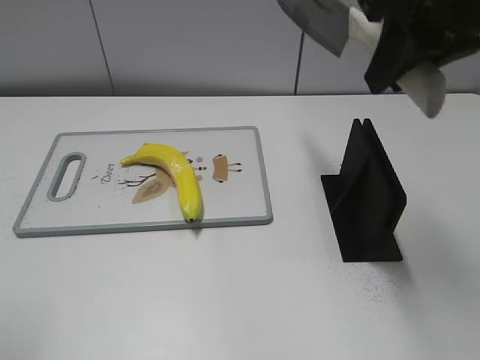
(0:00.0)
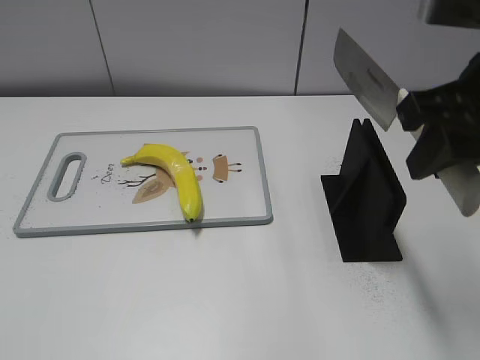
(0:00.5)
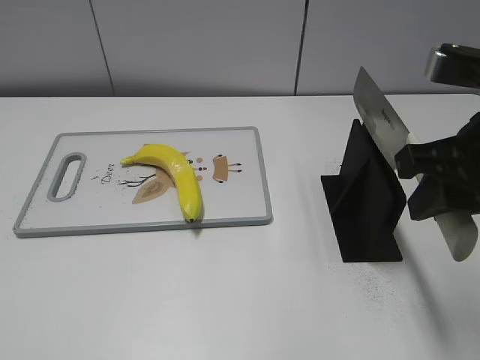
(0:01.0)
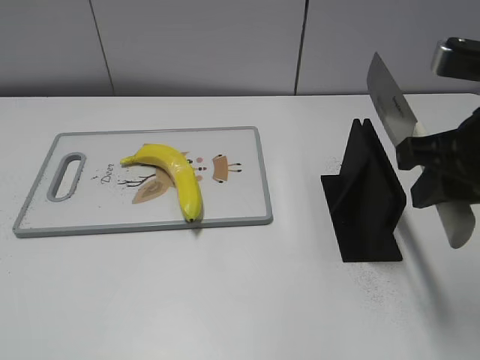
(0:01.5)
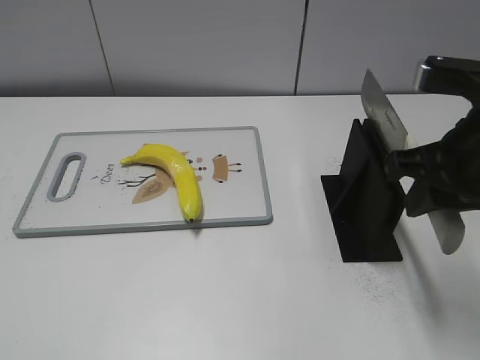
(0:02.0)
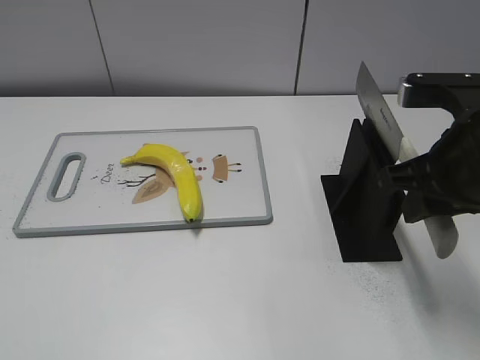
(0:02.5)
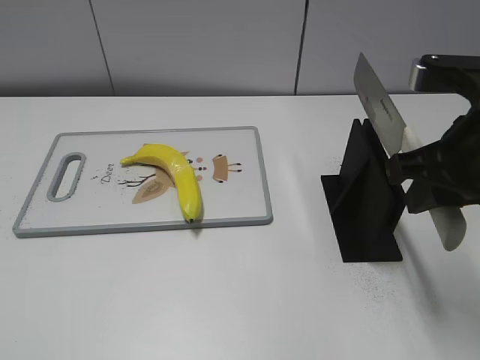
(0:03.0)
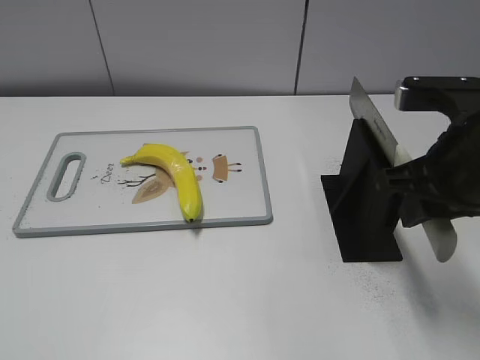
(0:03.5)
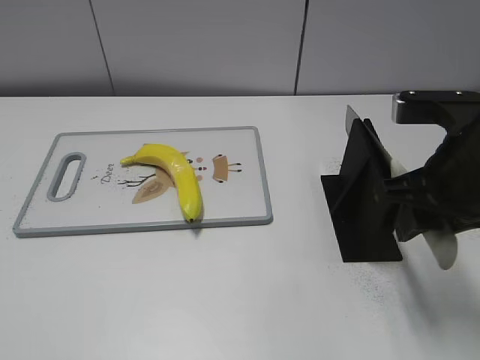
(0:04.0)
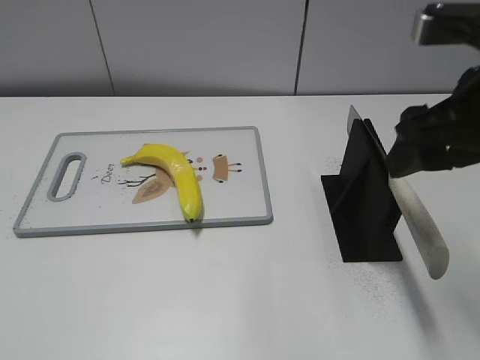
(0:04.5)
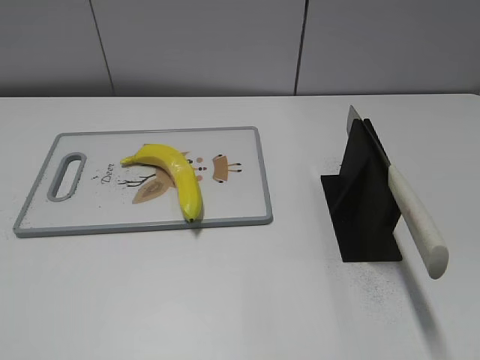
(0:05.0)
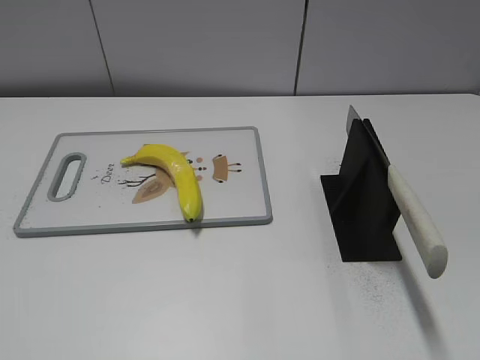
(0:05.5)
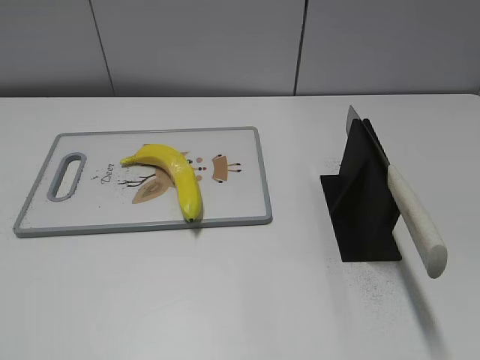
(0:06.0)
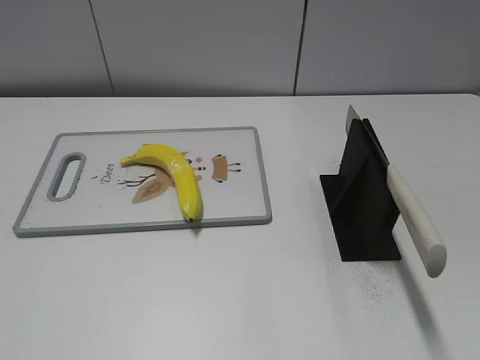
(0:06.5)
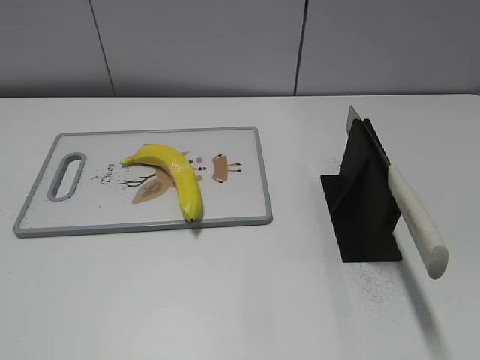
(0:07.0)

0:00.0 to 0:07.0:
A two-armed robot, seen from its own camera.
Task of the whole recording: cut plastic banana.
Step, 0:00.5 to 0:07.0: Place the knife on the storage rack with your right hand.
0:00.0 to 0:02.0: The left gripper is displaced backward and downward by roughly 15 cm. Meanwhile the right gripper is displaced downward by roughly 10 cm.
0:02.0 to 0:03.5: The grippers stay close to where they were, moving slightly.
0:03.5 to 0:05.0: The right gripper travels backward, upward and to the right by approximately 15 cm, and opens up.

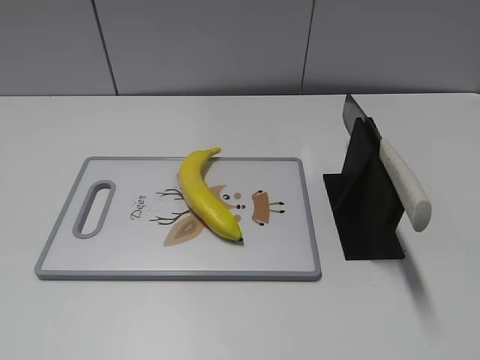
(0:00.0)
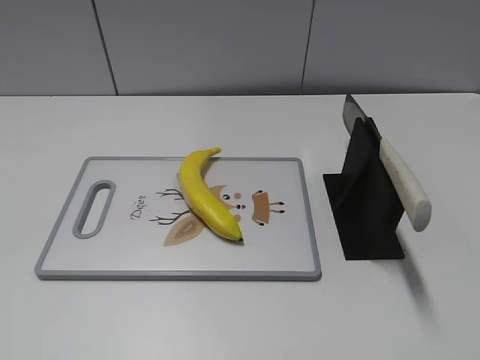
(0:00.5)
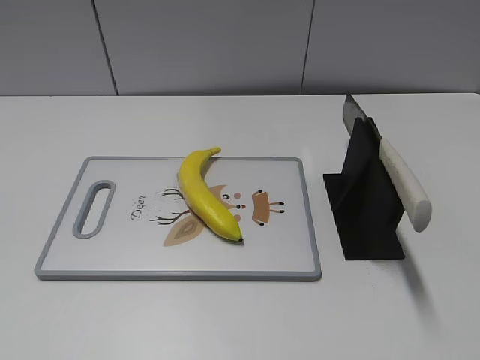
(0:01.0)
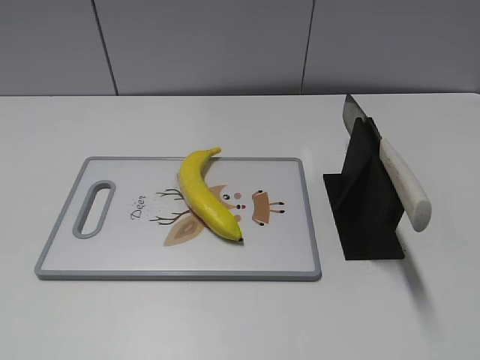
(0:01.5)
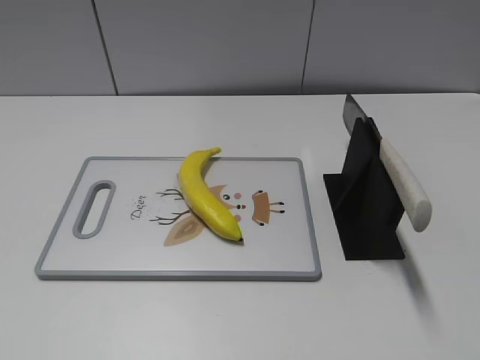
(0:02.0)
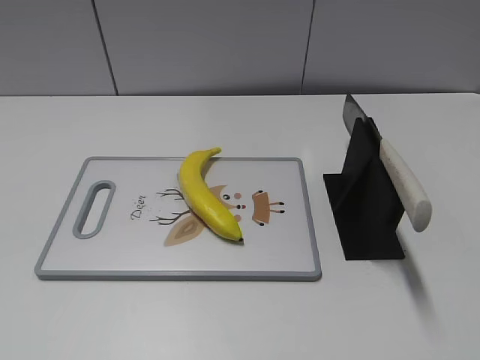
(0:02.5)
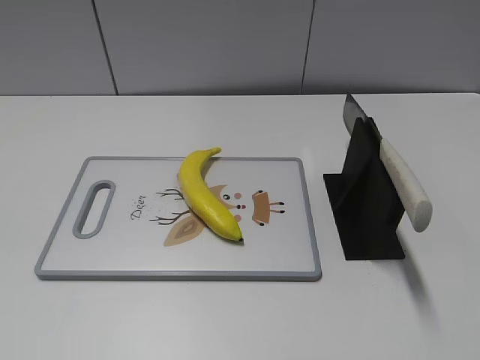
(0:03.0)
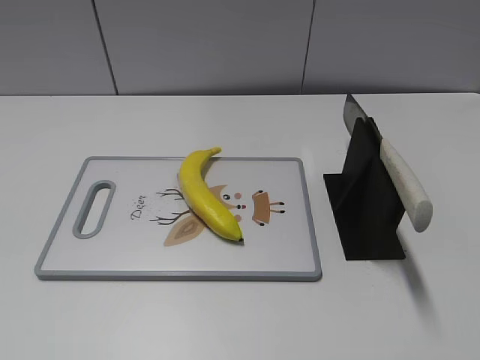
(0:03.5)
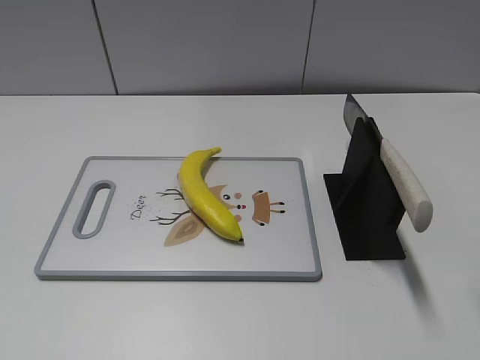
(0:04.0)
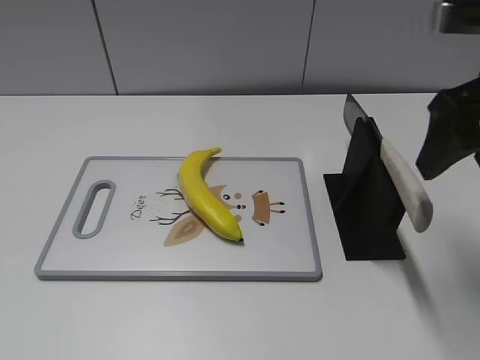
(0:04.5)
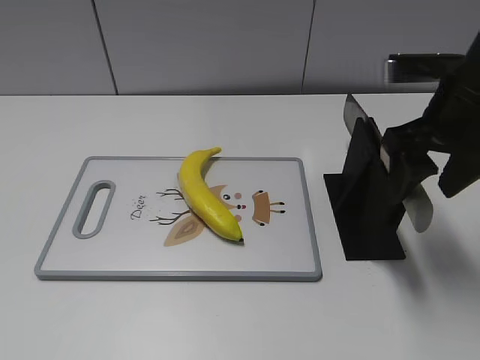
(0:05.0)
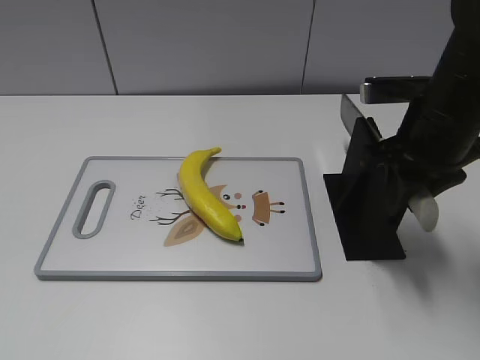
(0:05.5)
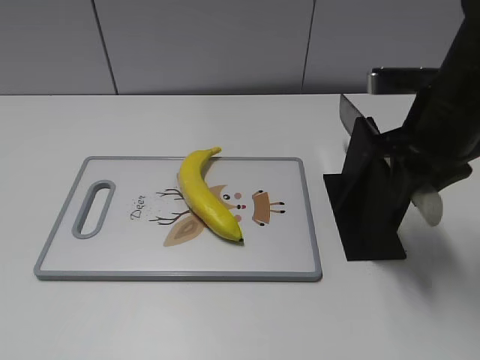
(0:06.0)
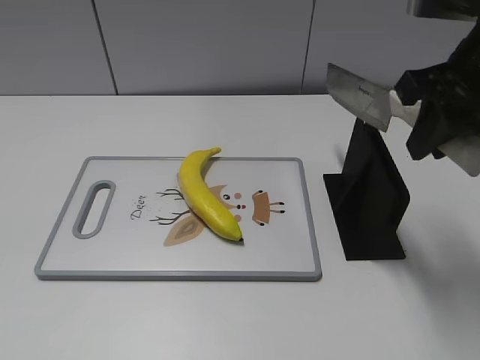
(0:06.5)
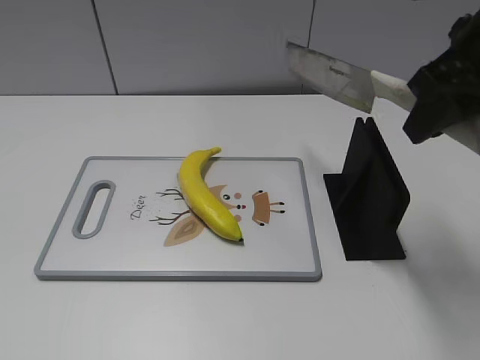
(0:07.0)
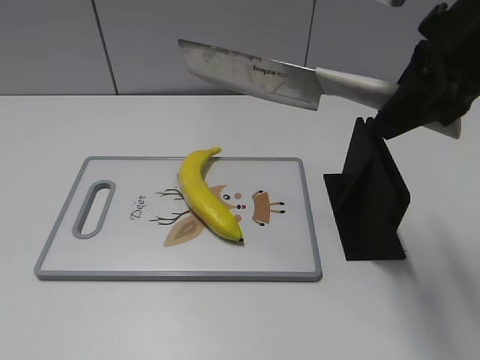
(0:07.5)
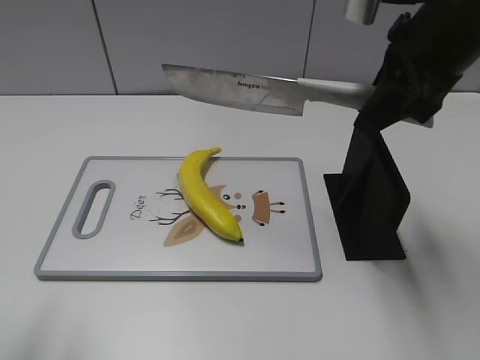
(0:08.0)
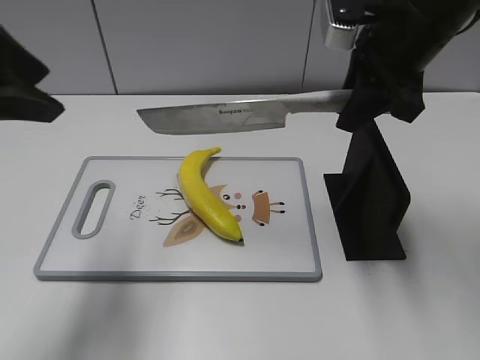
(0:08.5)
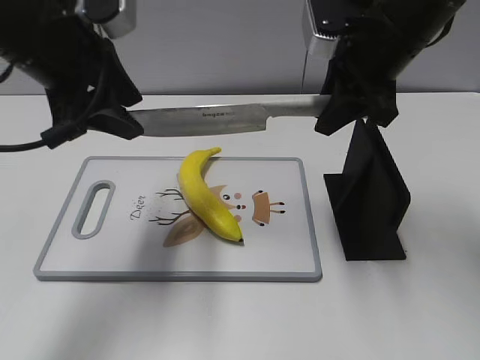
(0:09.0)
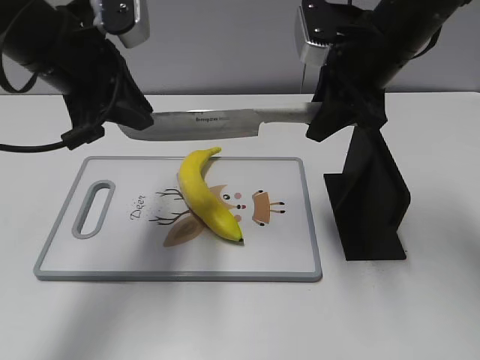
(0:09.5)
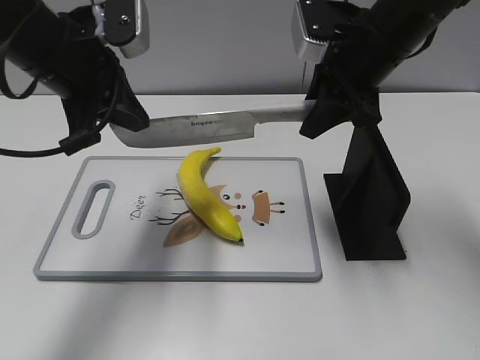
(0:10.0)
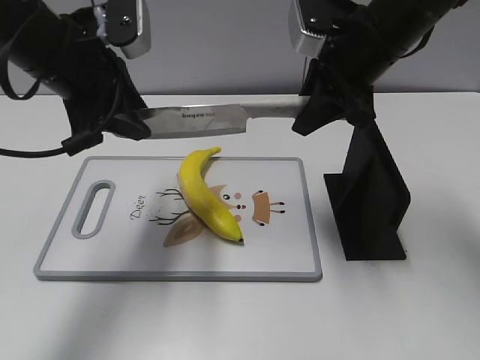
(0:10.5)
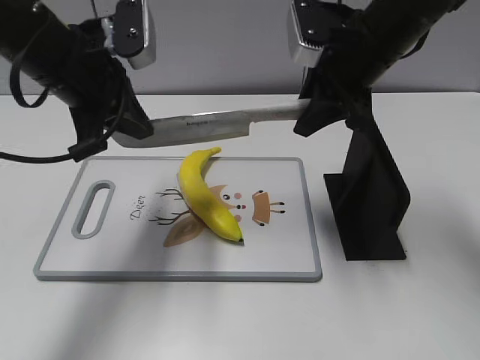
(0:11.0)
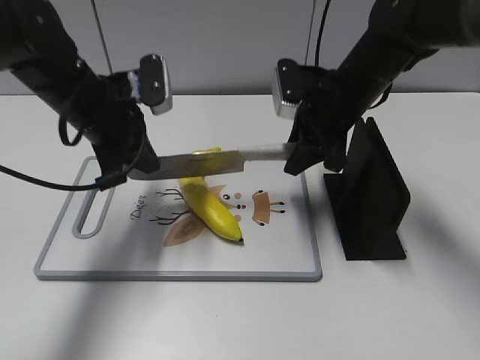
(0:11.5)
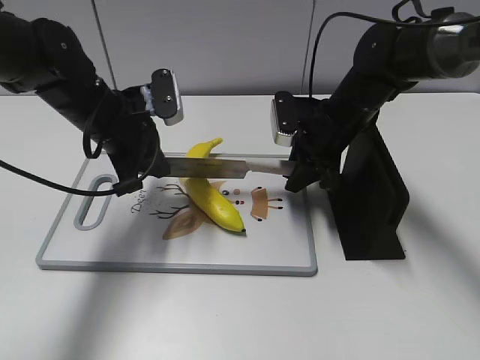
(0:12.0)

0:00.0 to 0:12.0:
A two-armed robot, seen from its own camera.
Task of the whole recording: cut plastic banana.
Step, 0:00.0 to 0:07.0: Grab the knife handle with your right hand.
0:04.0 to 0:06.0: The right gripper heads downward, forward and to the left, covering roughly 15 cm, and closes its fingers.
0:06.0 to 0:08.0: The right gripper travels upward by about 10 cm. Meanwhile the left gripper is displaced forward by roughly 10 cm.
0:08.0 to 0:10.0: The left gripper shifts about 25 cm forward and to the right, and closes; the right gripper moves forward and downward, about 10 cm.
0:10.0 to 0:12.0: Both grippers travel together downward, about 10 cm. The left gripper opens, then closes once more.

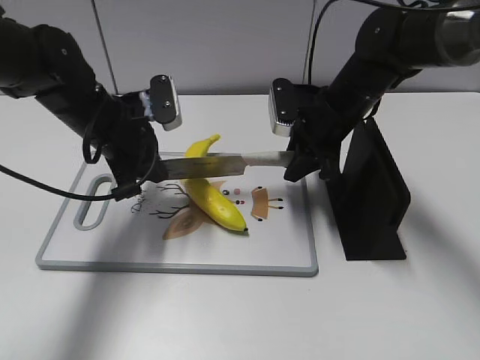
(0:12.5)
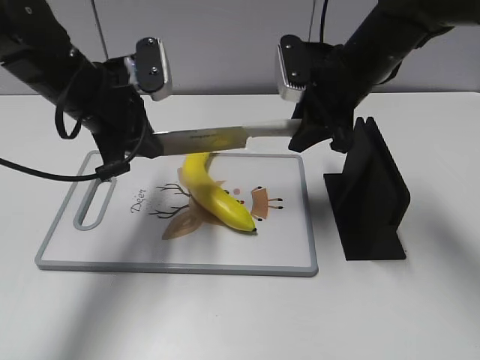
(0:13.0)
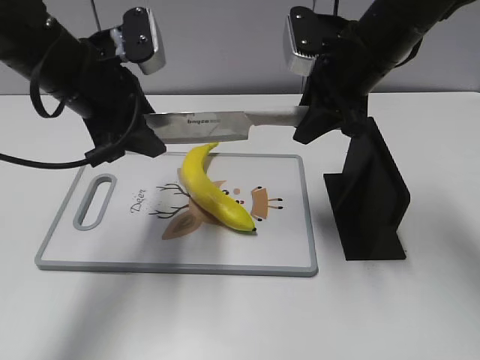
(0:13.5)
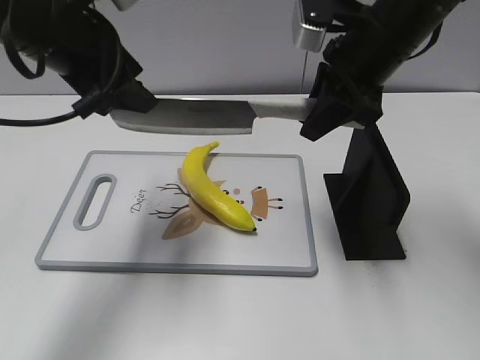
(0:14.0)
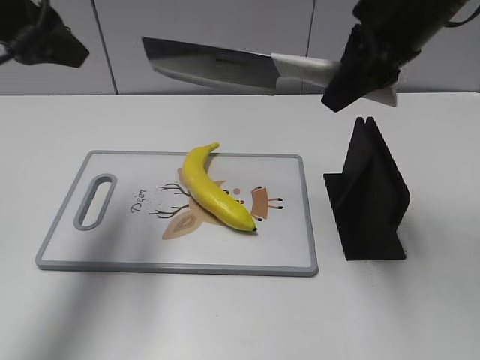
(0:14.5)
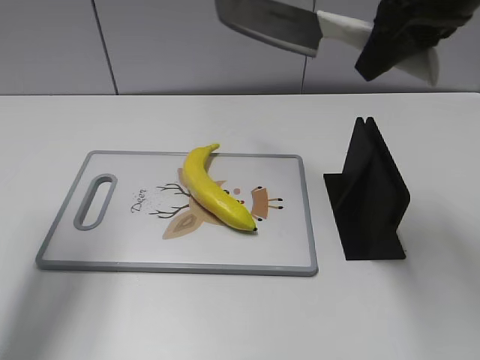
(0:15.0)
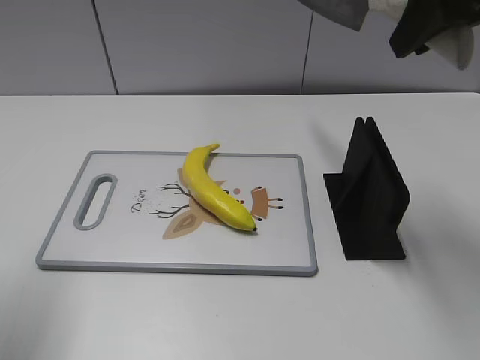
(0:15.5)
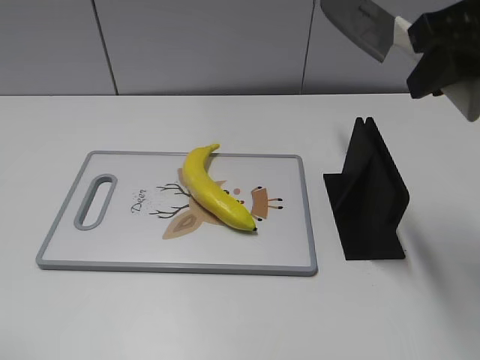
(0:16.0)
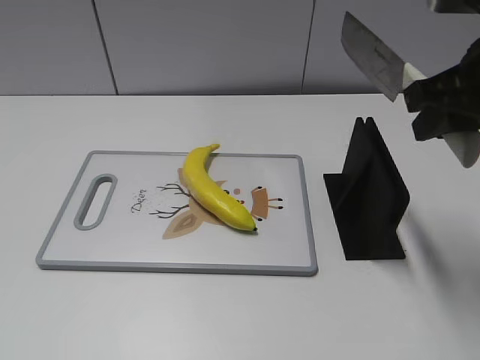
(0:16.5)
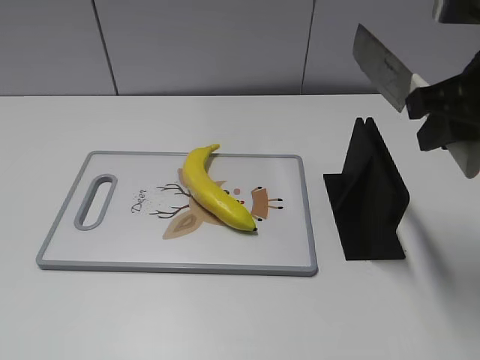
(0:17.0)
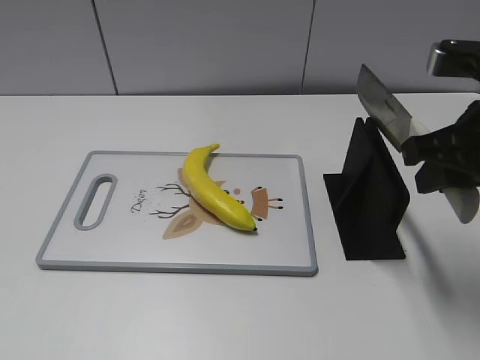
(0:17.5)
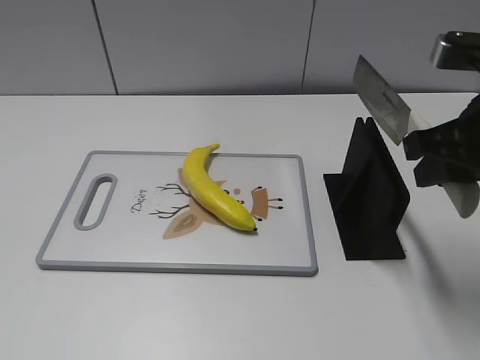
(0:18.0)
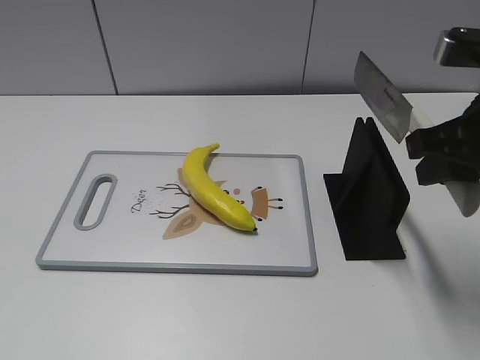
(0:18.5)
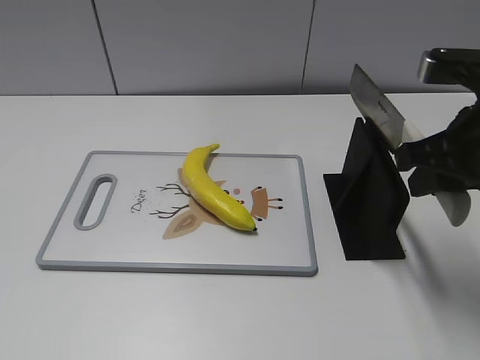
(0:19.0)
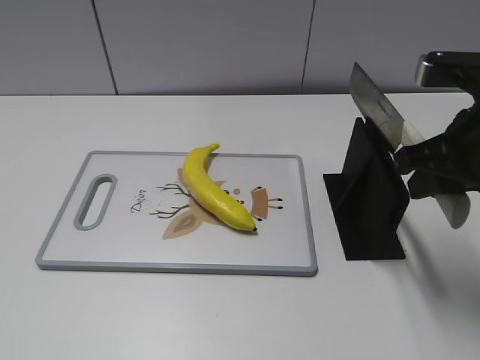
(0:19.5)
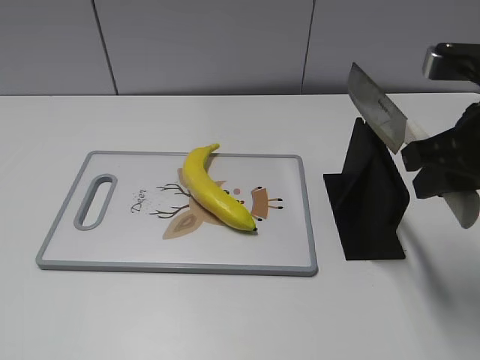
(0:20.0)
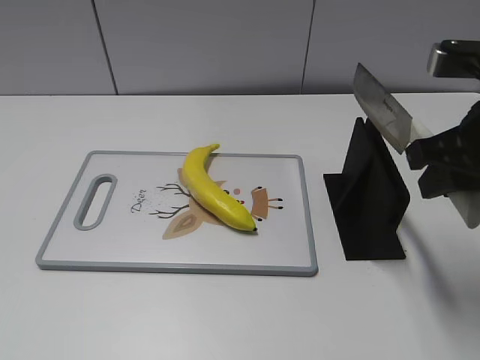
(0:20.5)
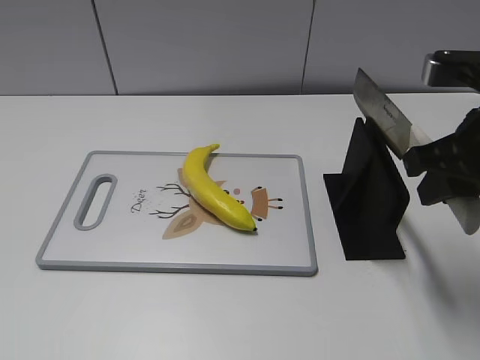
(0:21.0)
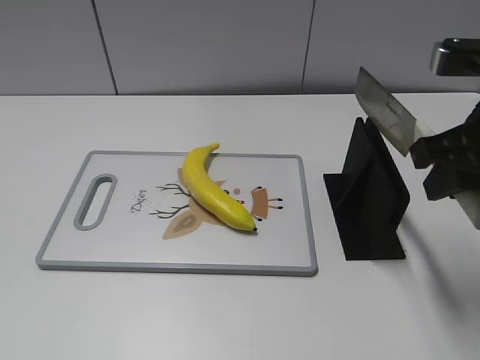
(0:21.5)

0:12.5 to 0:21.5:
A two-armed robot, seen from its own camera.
Task of the whole recording: cut plastic banana.
Step, 0:14.0 to 0:15.0: Cut the banana with your right hand.
Step, 0:15.5 to 0:17.0: Lift the knife with your right hand.
0:12.5 to 0:14.5: The right gripper shifts about 20 cm upward and backward; the left gripper travels upward by roughly 20 cm, and opens.
0:14.5 to 0:17.0: The right gripper moves backward and to the right, roughly 10 cm, and travels upward and back again, about 5 cm each way, while the left gripper travels backward by approximately 30 cm.
0:17.0 to 0:19.5: The right gripper shifts by some 5 cm.
0:19.5 to 0:21.5: The grippers stay close to where they were, moving slightly.
